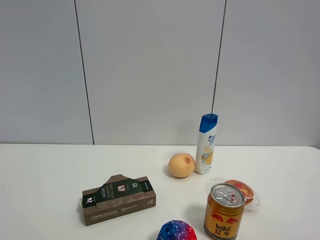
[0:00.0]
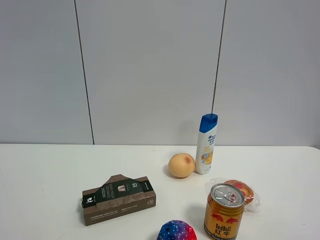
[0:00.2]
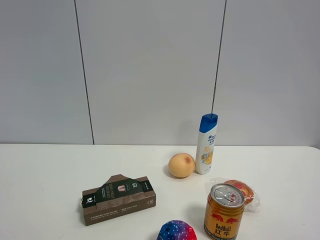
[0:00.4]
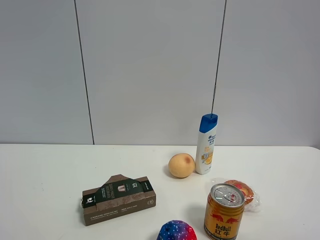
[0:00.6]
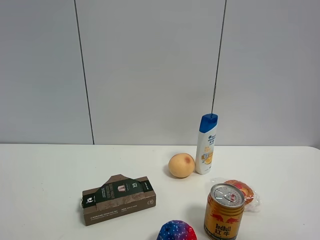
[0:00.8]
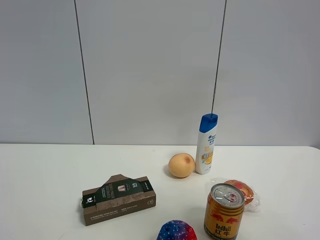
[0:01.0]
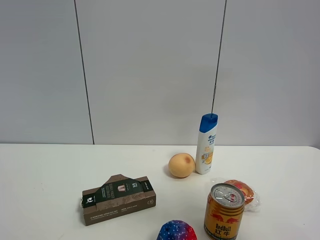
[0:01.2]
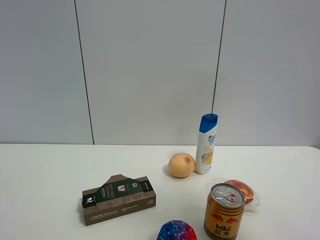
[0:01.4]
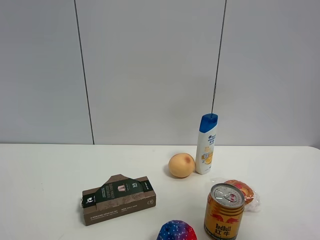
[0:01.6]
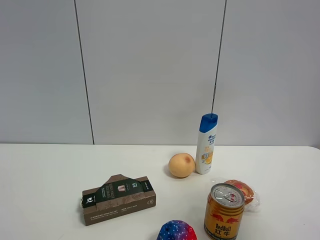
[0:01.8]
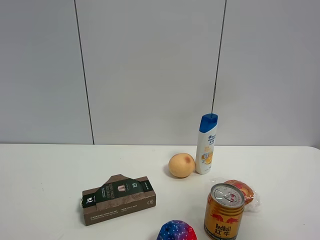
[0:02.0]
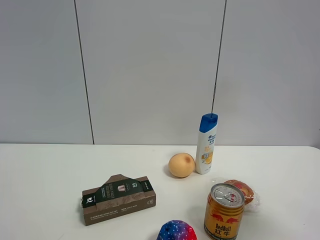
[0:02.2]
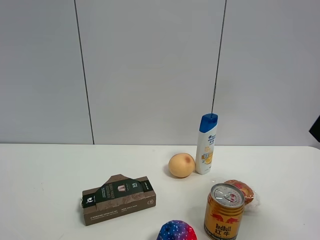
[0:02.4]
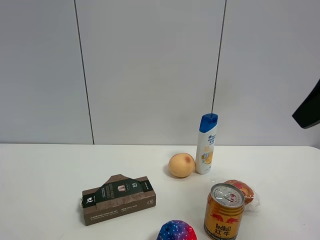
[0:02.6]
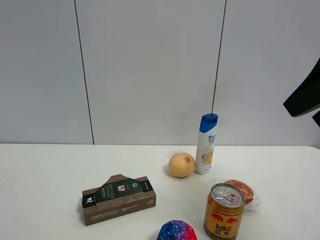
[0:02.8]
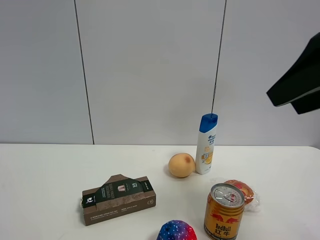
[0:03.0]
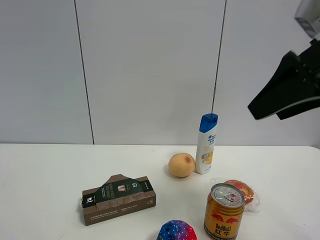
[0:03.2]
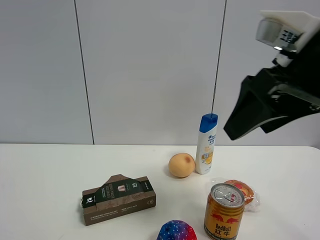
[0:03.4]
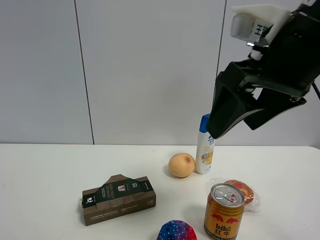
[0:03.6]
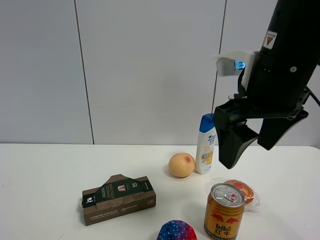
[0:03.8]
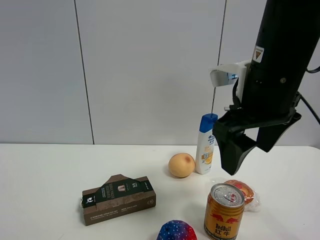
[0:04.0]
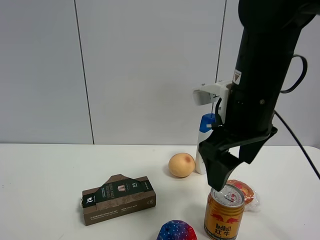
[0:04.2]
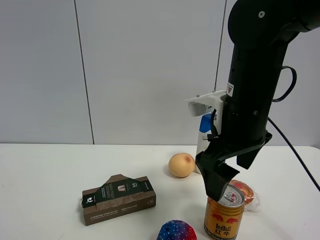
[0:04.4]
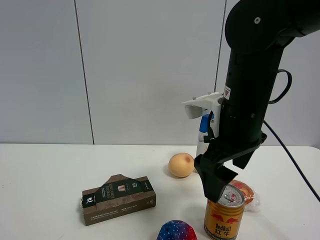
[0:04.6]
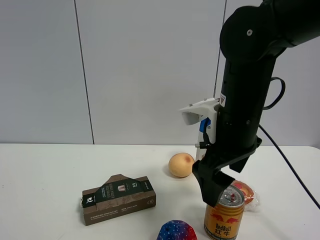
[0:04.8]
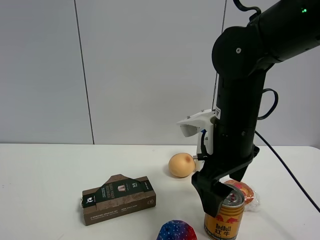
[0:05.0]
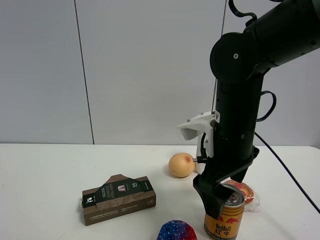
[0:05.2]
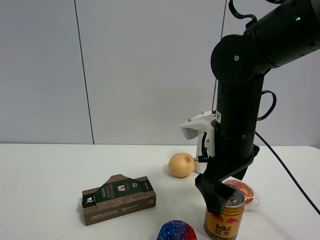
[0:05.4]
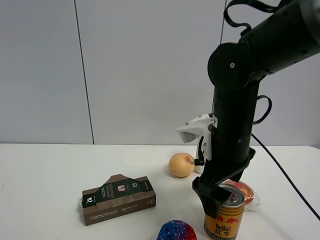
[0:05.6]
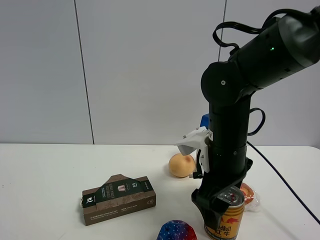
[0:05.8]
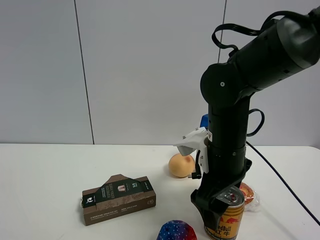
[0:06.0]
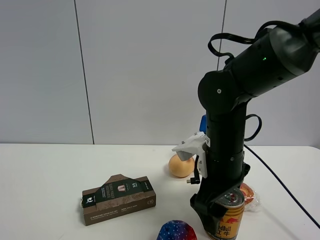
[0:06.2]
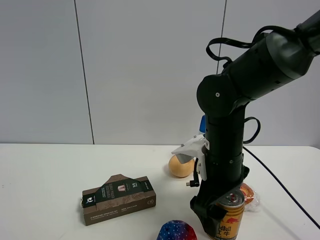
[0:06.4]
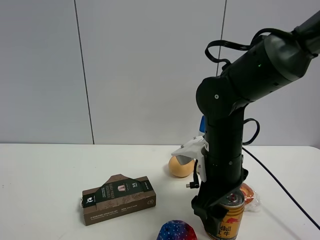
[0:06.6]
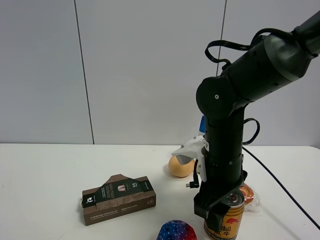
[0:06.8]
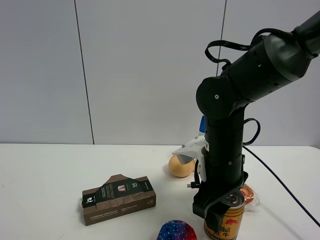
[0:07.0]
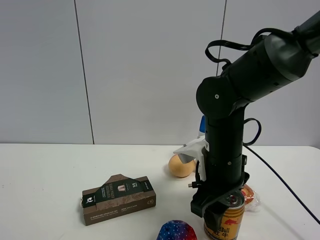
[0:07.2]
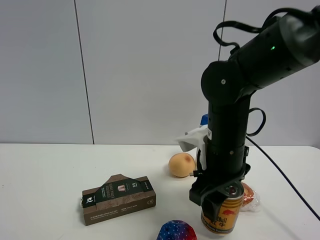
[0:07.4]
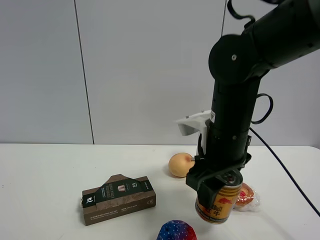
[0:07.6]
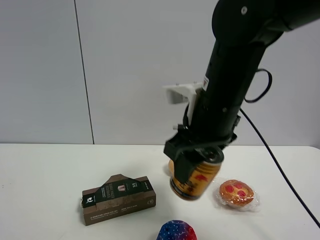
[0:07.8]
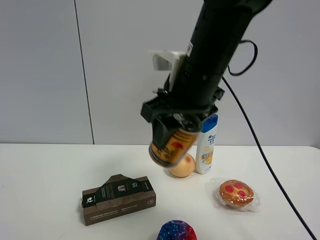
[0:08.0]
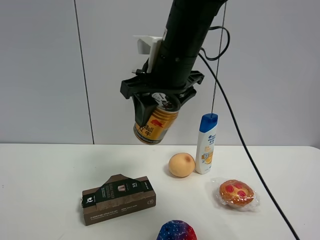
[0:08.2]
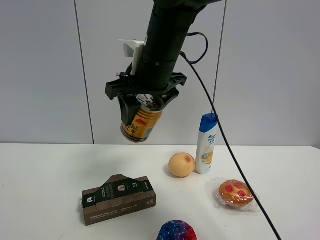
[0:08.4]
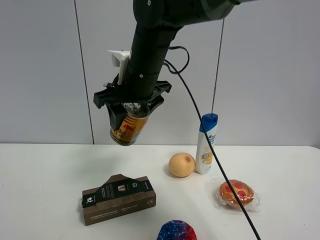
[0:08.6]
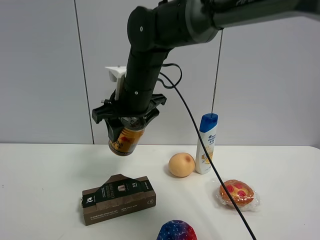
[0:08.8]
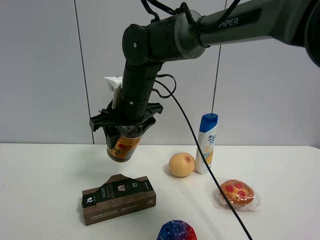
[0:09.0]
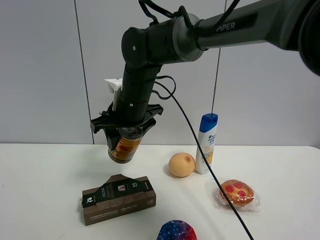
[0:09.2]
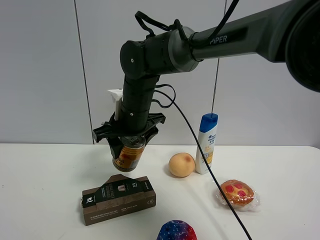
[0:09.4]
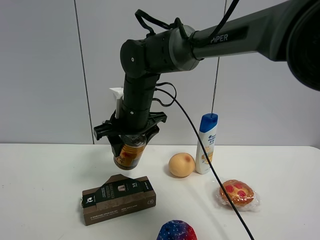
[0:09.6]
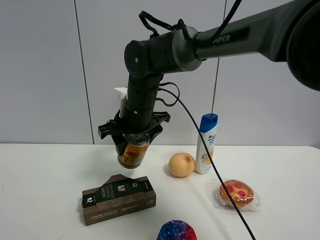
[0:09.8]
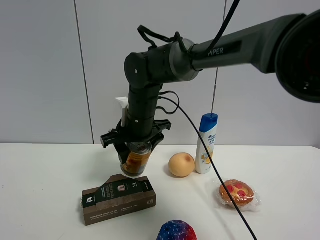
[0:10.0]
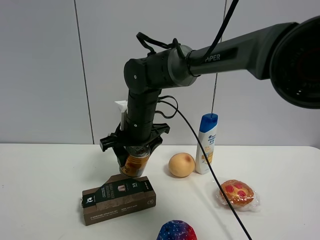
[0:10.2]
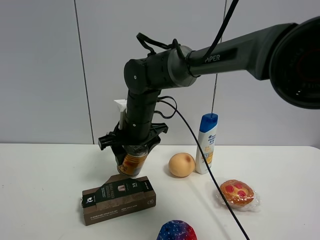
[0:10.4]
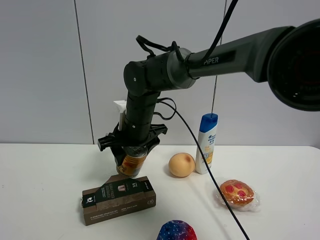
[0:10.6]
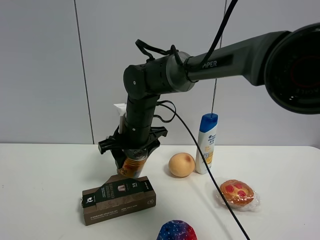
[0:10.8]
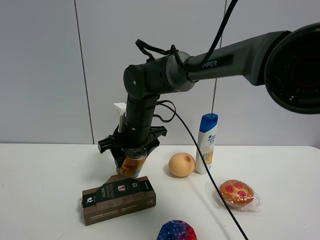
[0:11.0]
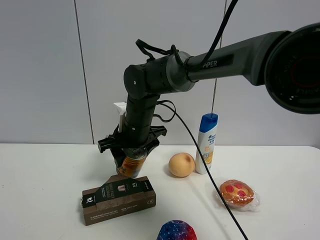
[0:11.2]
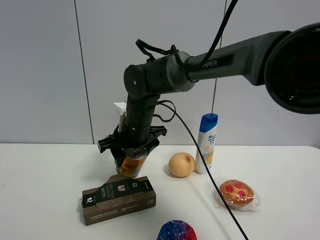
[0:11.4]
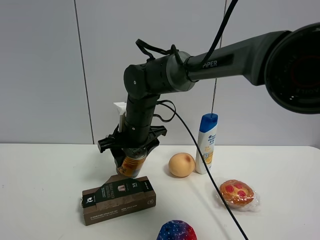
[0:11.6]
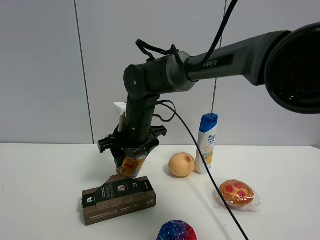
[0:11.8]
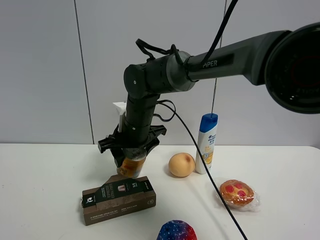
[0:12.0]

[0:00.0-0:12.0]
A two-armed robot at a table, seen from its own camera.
Task of the whole recording: the gripper move the object.
Step, 0:00.0 to 0:07.0: Grasp the red bull with the right gripper.
0:00.0 to 0:01.6: The right gripper heads forward and upward, covering approximately 15 cm, and closes.
0:01.6 to 0:03.0: The right gripper is displaced forward by approximately 5 cm.
0:03.0 to 0:04.4: The right gripper heads to the left, downward and forward, covering some 15 cm, and opens.
0:04.4 to 0:06.0: The right gripper travels downward by roughly 5 cm.
0:06.0 to 0:07.6: The right gripper closes.
0:07.6 to 0:09.0: The right gripper heads to the left and forward, covering about 20 cm.
0:09.0 to 0:10.4: The right gripper moves downward, approximately 5 cm.
0:10.4 to 0:12.0: Both grippers stay about where they are.

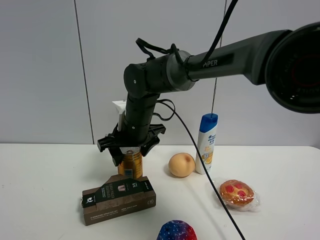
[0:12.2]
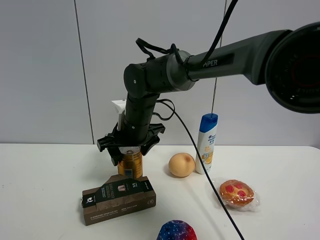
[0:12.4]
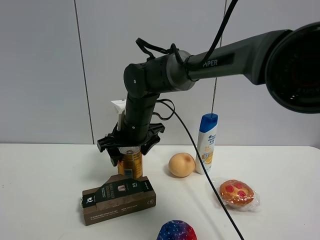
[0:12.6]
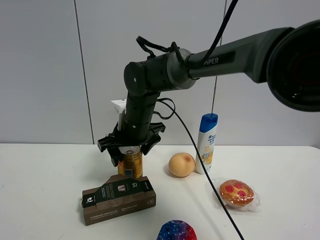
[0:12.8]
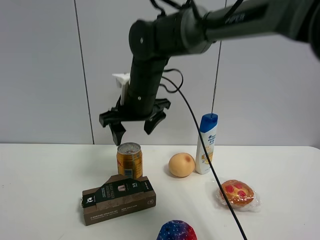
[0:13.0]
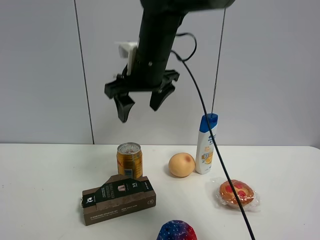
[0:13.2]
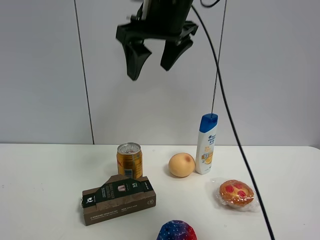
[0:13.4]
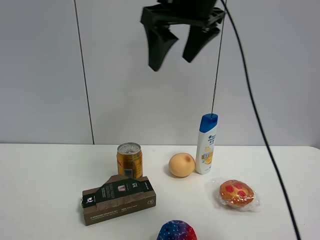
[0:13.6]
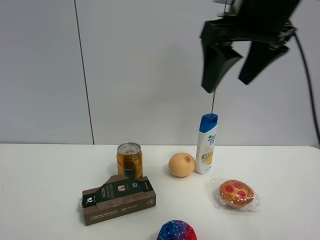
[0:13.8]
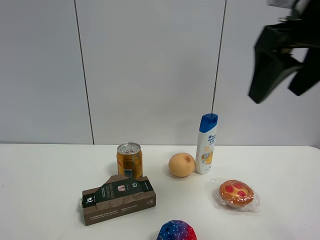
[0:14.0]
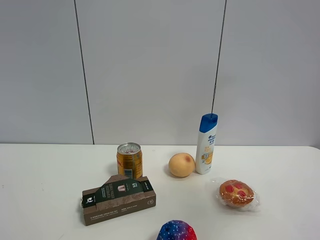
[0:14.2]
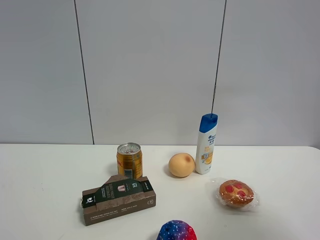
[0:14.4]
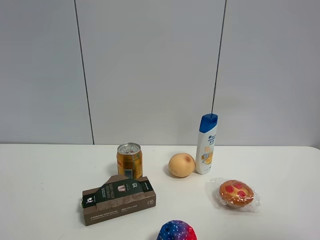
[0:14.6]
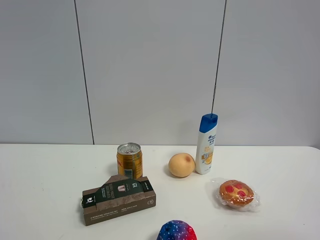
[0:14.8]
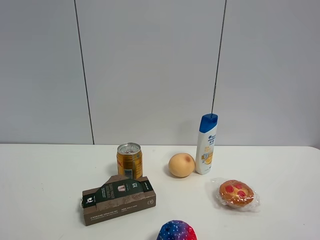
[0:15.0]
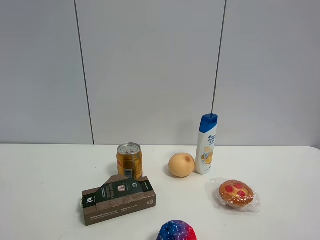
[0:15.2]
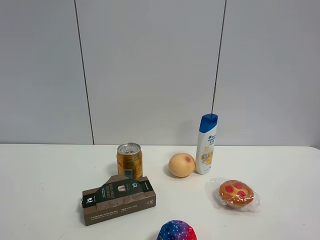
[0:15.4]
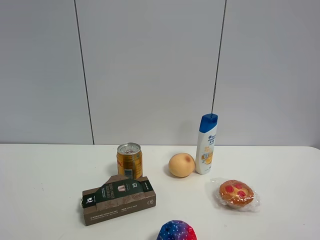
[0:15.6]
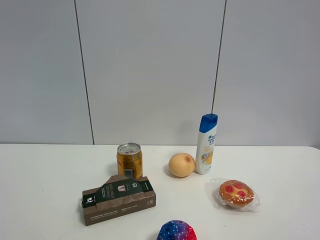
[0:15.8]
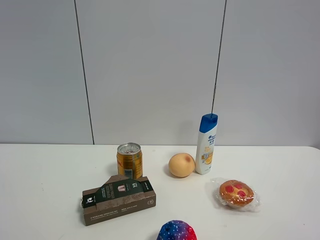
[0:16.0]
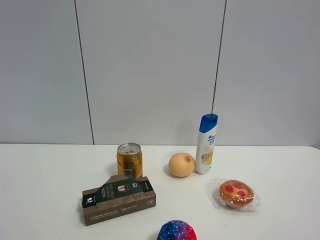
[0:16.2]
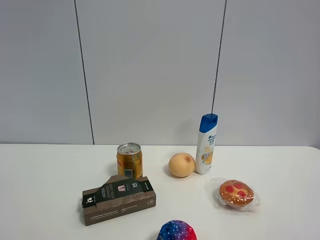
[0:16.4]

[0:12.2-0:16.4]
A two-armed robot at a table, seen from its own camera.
Task of the whole recording: the gripper move the object.
0:12.2 to 0:13.6: The right gripper travels upward, to the right and backward by about 25 cm.
0:13.6 to 0:15.0: The right gripper heads backward and to the right, covering approximately 40 cm.
0:15.0 to 0:16.4: Neither gripper changes place.

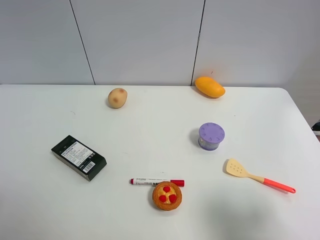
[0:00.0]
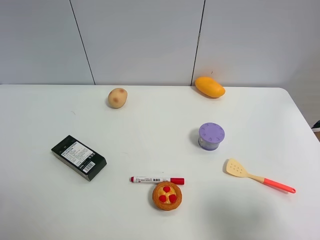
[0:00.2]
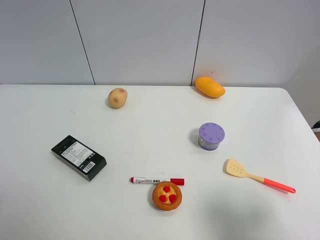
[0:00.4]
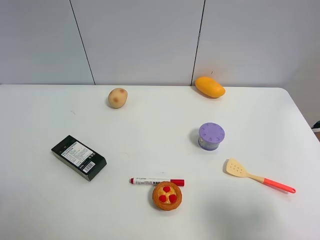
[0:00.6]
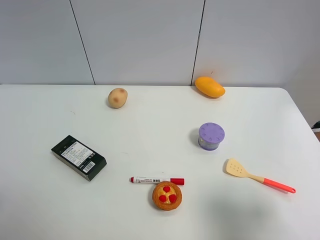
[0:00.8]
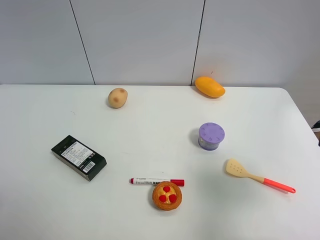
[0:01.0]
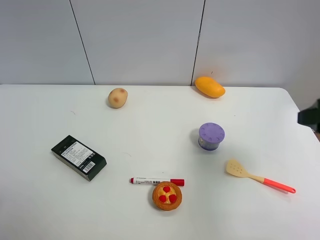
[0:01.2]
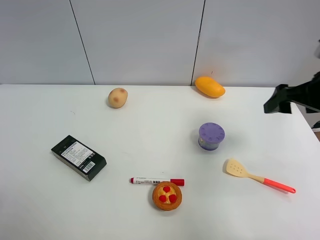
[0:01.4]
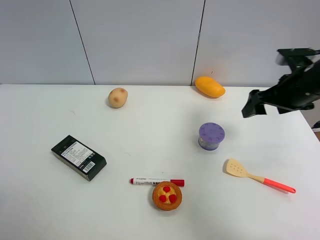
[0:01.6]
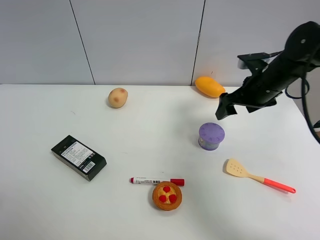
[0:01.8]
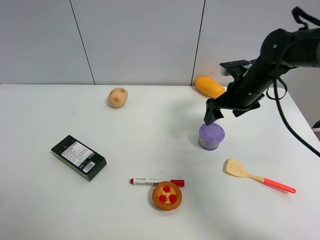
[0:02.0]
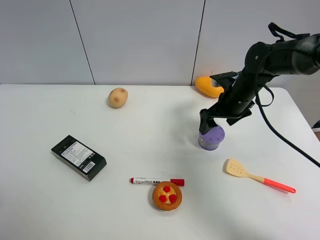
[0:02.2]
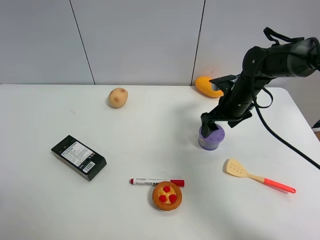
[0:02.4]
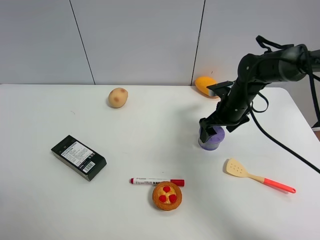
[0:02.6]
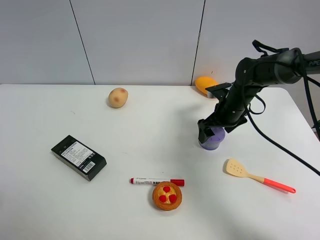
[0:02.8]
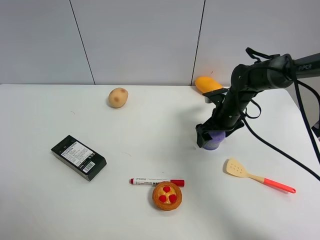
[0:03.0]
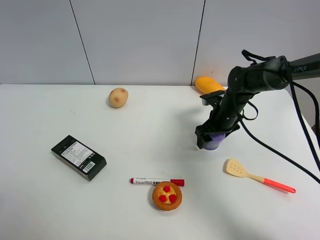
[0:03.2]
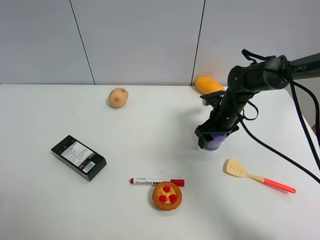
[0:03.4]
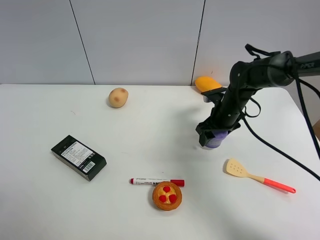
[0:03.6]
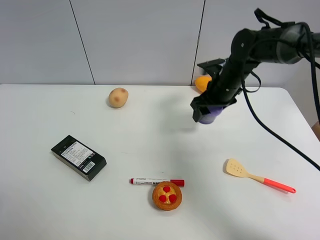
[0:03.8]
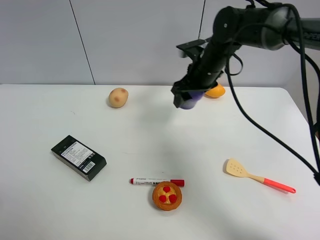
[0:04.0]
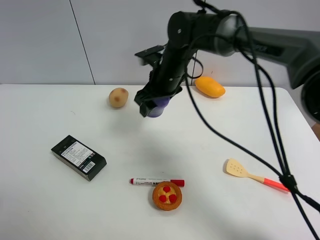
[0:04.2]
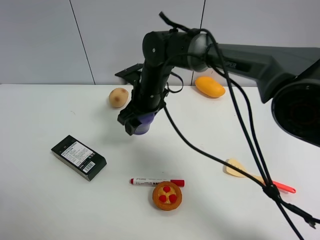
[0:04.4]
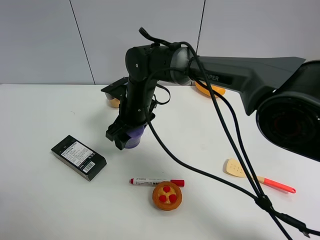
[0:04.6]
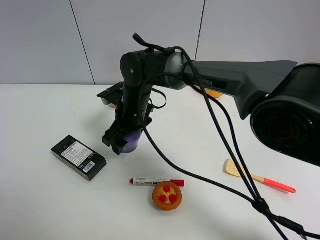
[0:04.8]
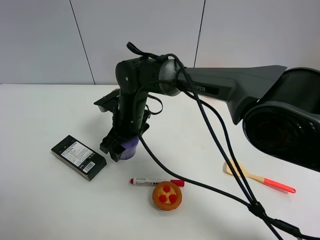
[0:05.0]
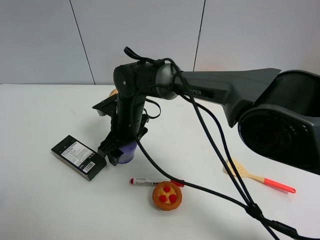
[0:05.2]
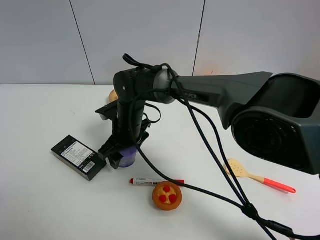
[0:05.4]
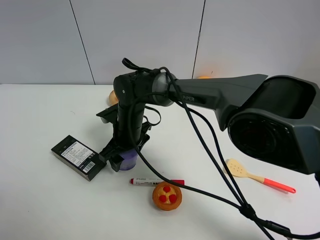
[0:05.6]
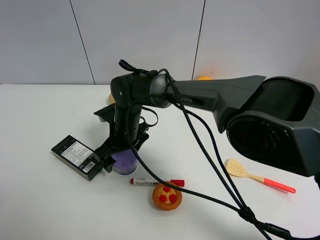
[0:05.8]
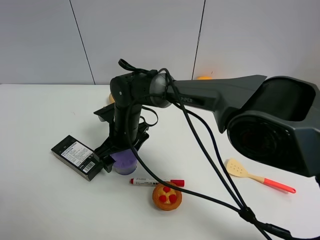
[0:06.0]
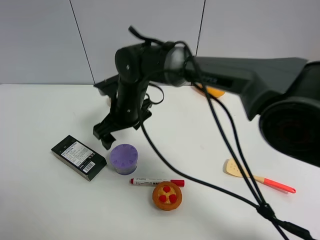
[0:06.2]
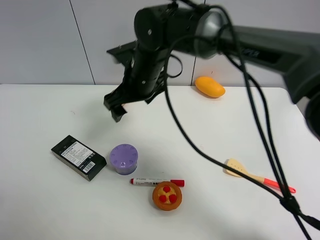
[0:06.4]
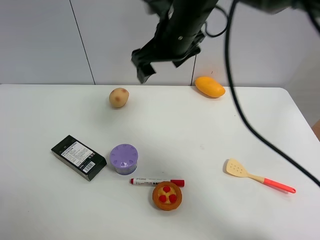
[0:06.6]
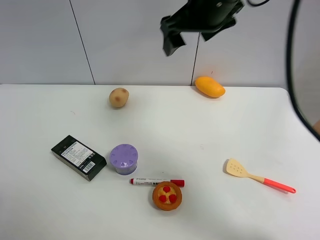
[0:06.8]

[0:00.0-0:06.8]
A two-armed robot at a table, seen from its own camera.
Task of the whole recording: the gripper move the object.
Step, 0:00.0 to 0:03.2: Grasp the Incense box with the right gripper.
Step, 0:03.4 to 0:05.8: Place the Incense box on the table with the right gripper.
0:00.0 to 0:01.4: The right gripper is displaced forward by about 25 cm.
0:01.4 to 0:02.8: The right gripper is displaced downward, forward and to the left by roughly 20 cm.
0:02.8 to 0:04.0: The right gripper heads upward and to the left, covering some 15 cm, and closes its fingers.
0:04.0 to 0:05.4: The right gripper travels to the left, downward and backward by some 20 cm.
0:05.4 to 0:06.8: The right gripper is displaced upward and to the right by some 30 cm, and opens.
